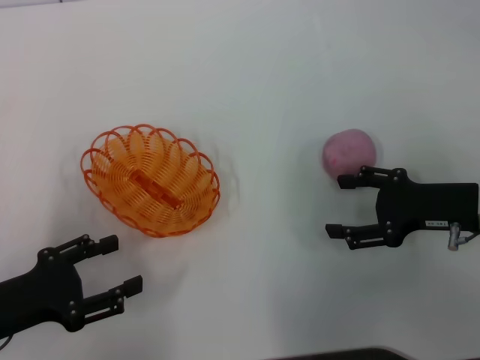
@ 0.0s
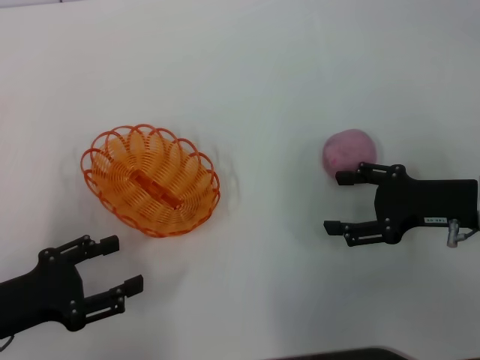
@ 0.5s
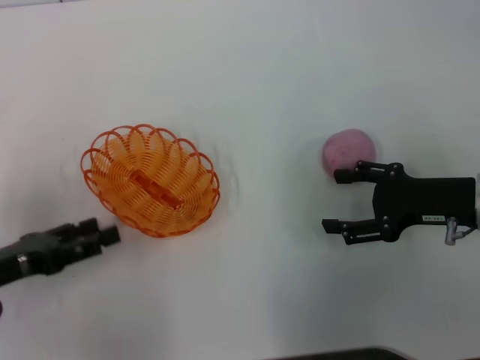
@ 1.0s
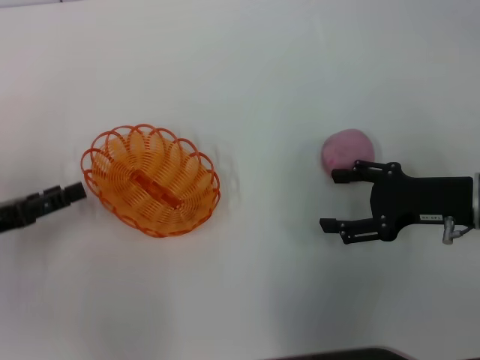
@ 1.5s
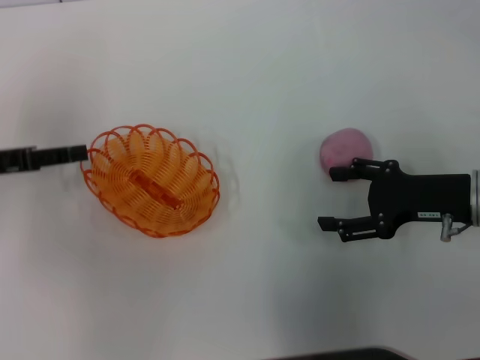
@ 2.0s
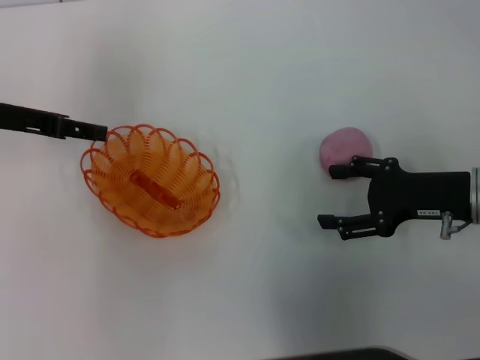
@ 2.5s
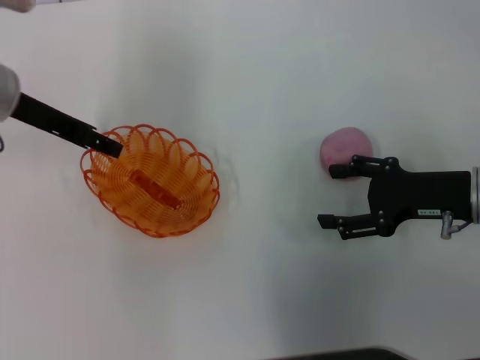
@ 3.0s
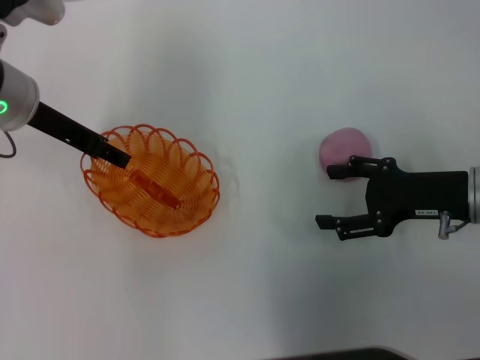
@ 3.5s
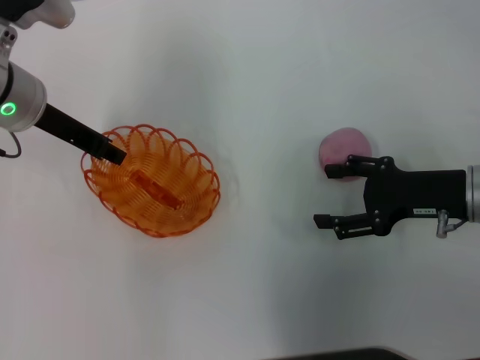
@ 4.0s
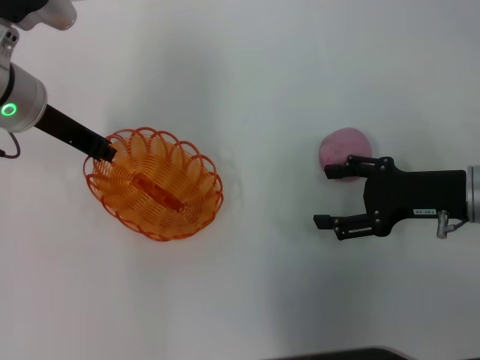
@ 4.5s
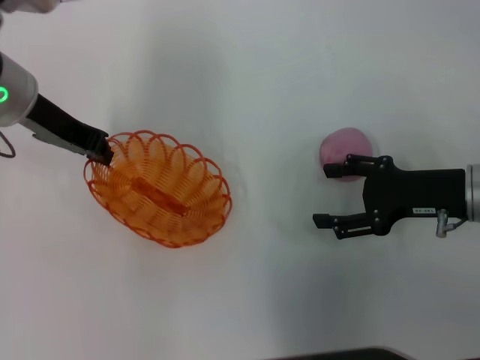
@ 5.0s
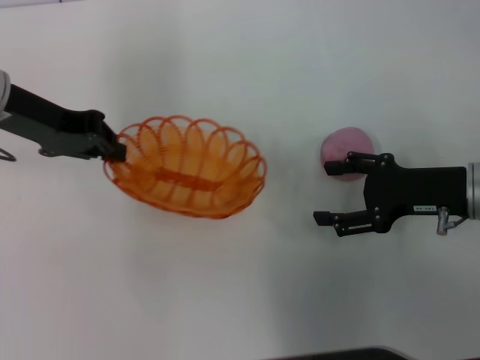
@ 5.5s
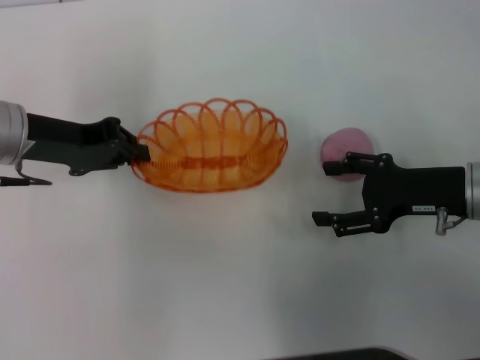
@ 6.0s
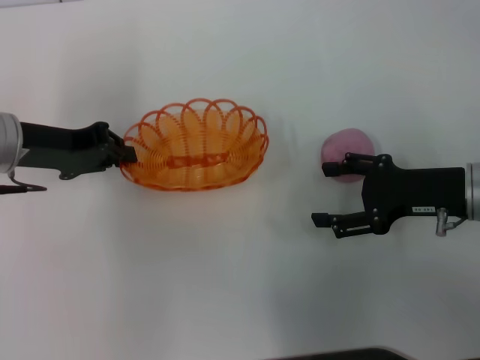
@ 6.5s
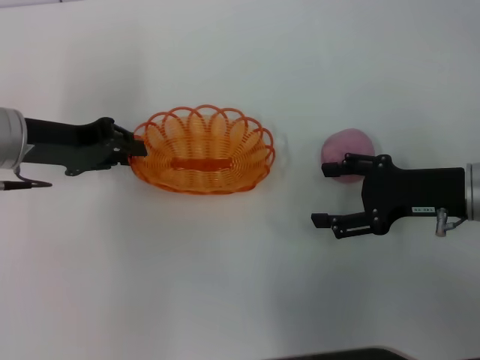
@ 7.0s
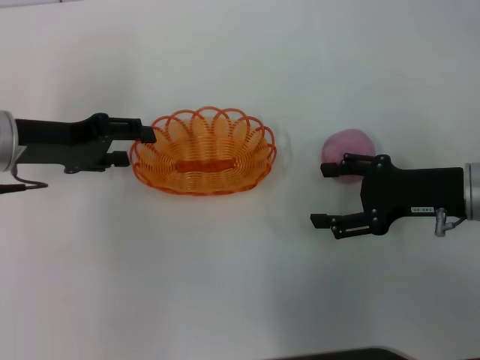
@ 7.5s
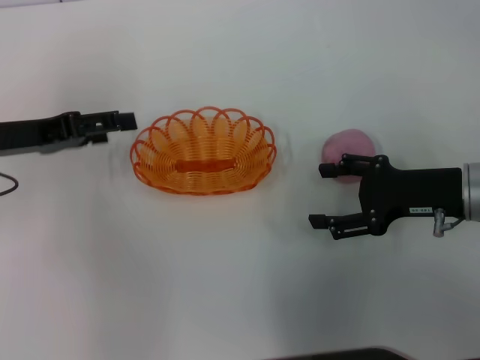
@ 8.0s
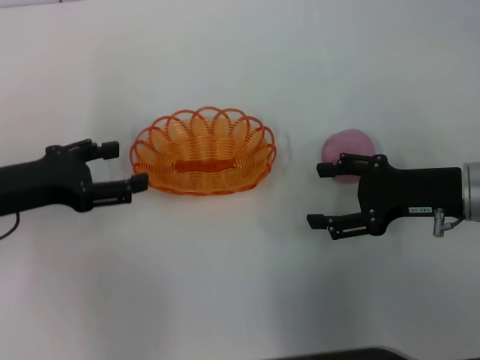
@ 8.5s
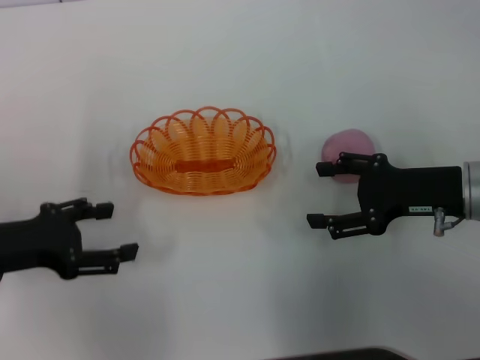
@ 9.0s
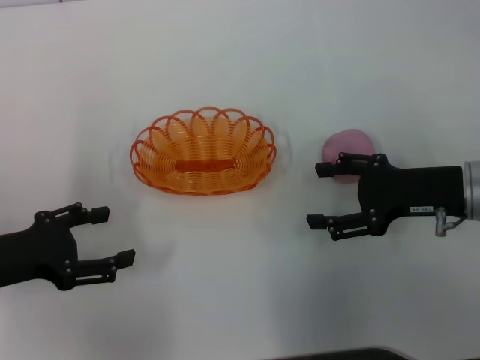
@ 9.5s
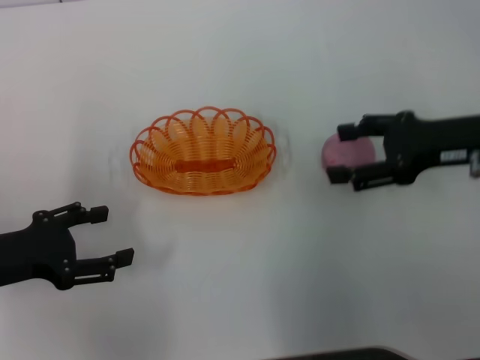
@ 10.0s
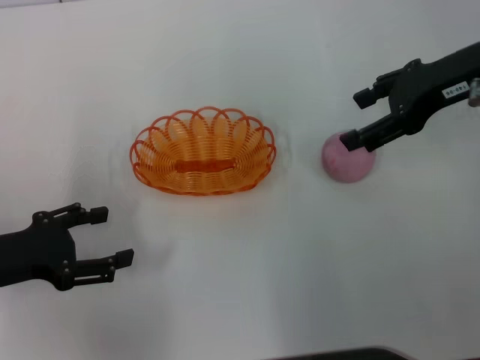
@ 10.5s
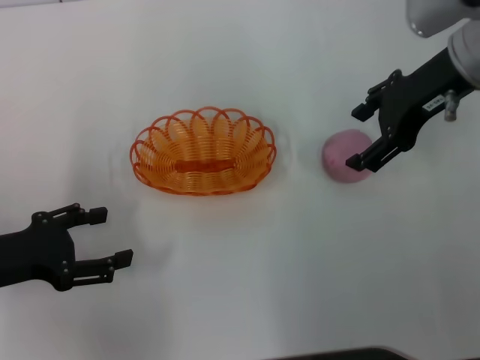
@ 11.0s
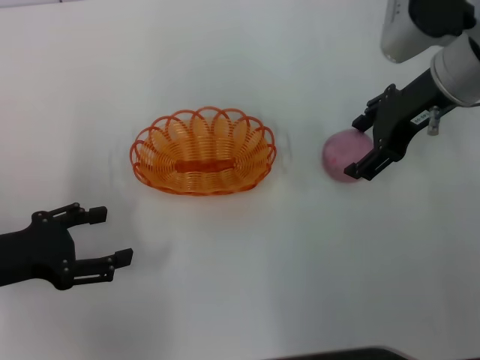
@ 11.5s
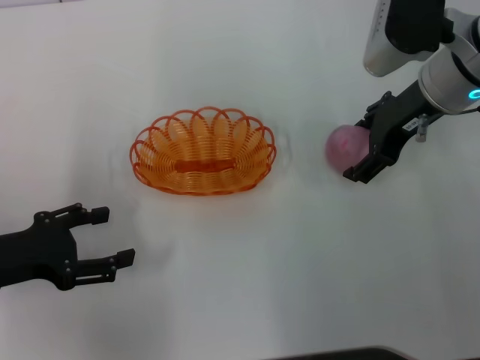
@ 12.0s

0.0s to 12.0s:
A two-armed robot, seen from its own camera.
Step, 0.0s to 5.0s: Pick up the basket with the left gripper.
Step, 6.0s to 8.0s: Place the basket in the center of view with the left gripper.
0.0s to 2.0s: The left gripper is displaced forward and upward by some 15 cm.
2.0s to 4.0s: The left gripper travels to the right and forward by roughly 15 cm.
4.0s to 6.0s: The left gripper closes its fingers.
6.0s to 8.0s: The left gripper opens its fingers.
8.0s to 10.0s: The left gripper goes some 10 cm backward. Meanwhile the right gripper travels upward by some 5 cm.
10.0s to 12.0s: The right gripper travels forward and to the left by roughly 10 cm.

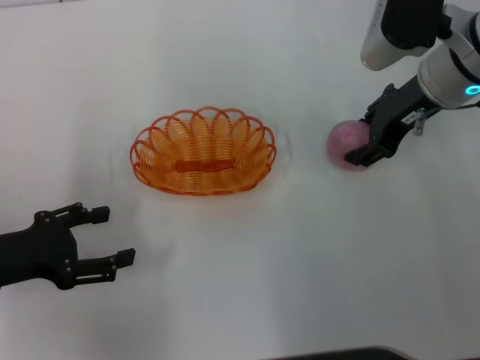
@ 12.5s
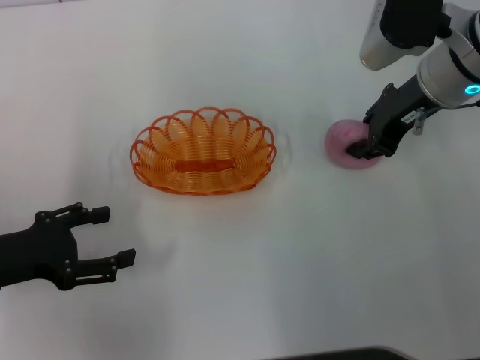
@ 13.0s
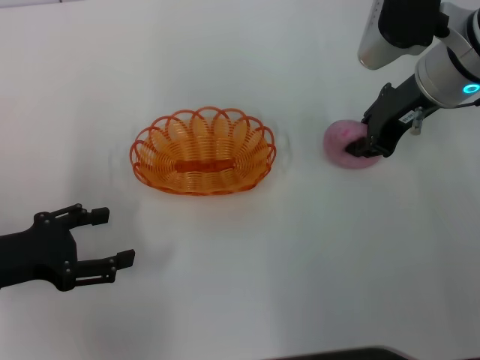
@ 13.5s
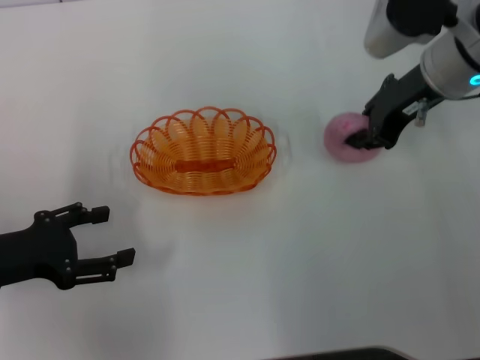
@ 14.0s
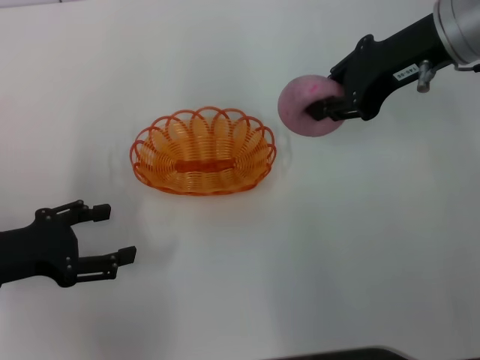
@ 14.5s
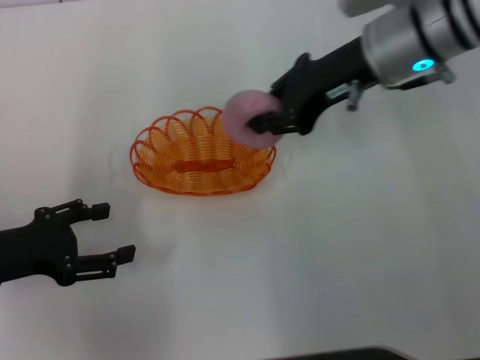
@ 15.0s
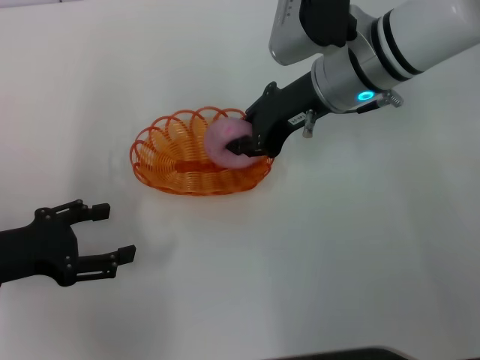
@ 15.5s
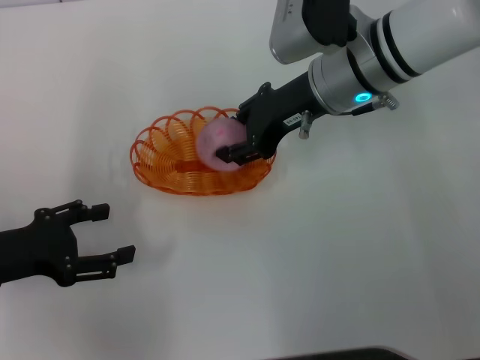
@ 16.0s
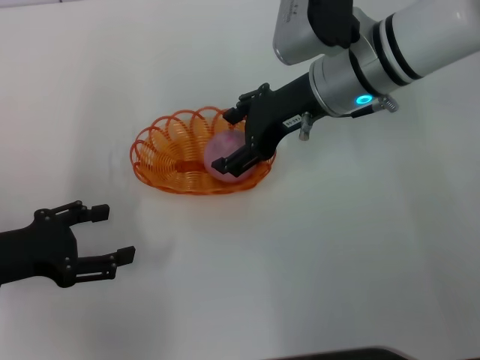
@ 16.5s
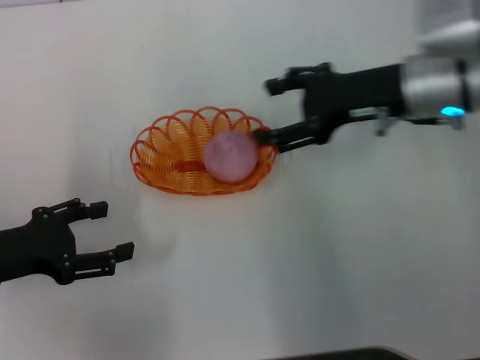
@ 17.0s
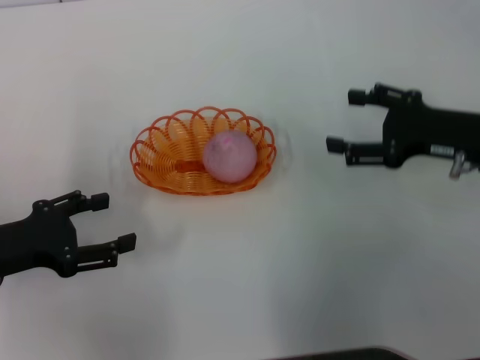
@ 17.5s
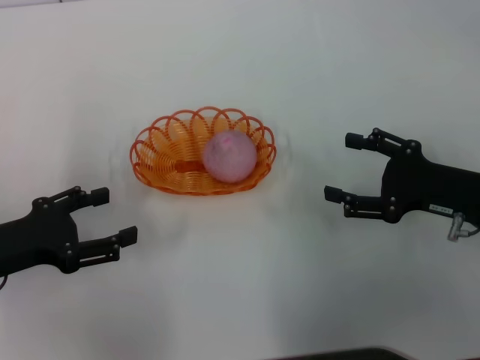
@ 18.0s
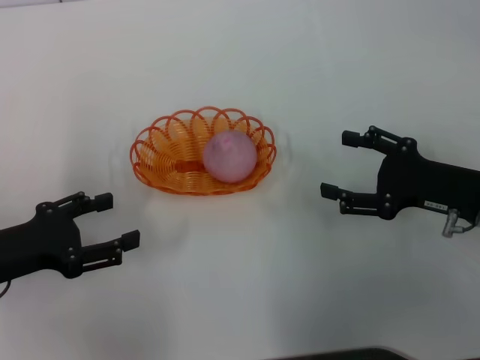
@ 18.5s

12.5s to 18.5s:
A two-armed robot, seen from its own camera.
Step, 14.5s to 17.0s: Place the peach into the basket with the right gripper.
12.5s to 14.5s: The right gripper shifts approximately 5 cm upward, and closes its fingers.
14.5s to 16.5s: The right gripper moves to the left and downward, approximately 10 cm, and opens up.
16.5s to 18.5s: The right gripper heads to the right, backward and downward, covering roughly 20 cm.

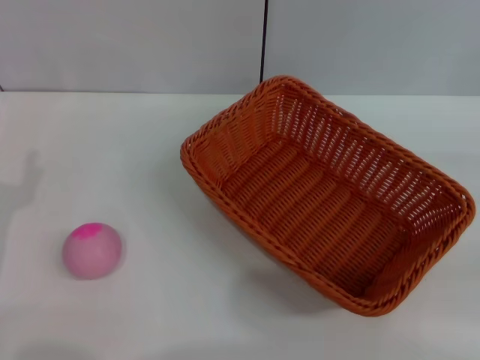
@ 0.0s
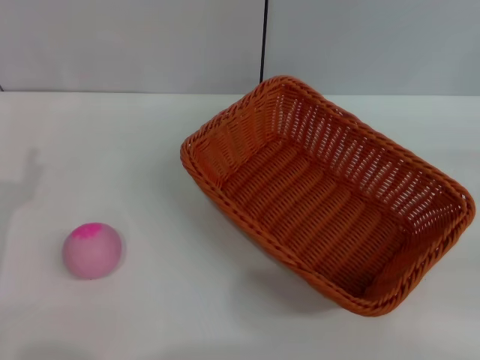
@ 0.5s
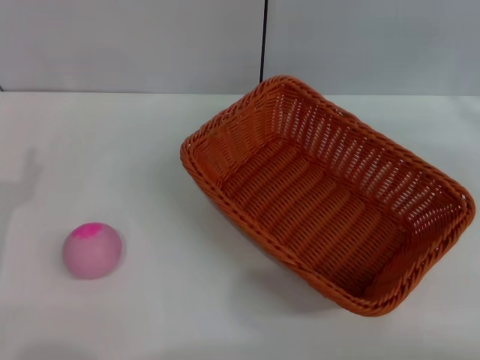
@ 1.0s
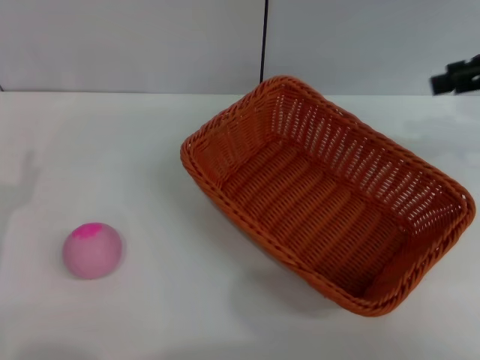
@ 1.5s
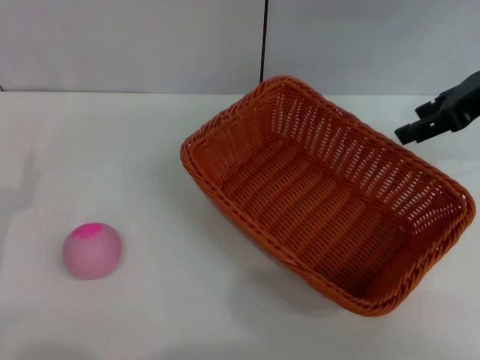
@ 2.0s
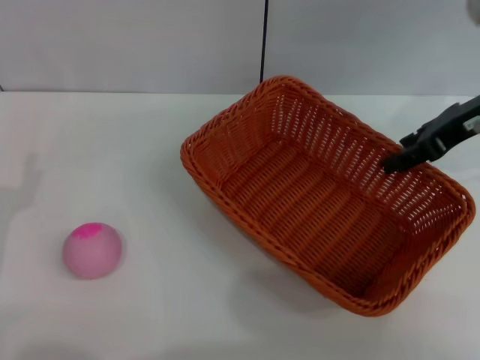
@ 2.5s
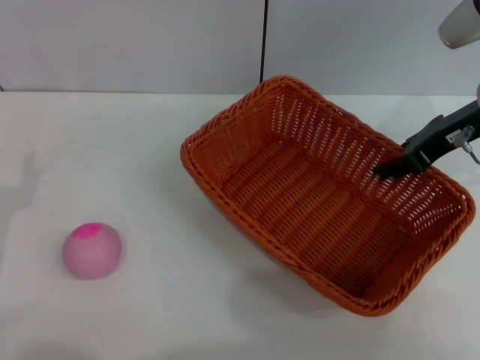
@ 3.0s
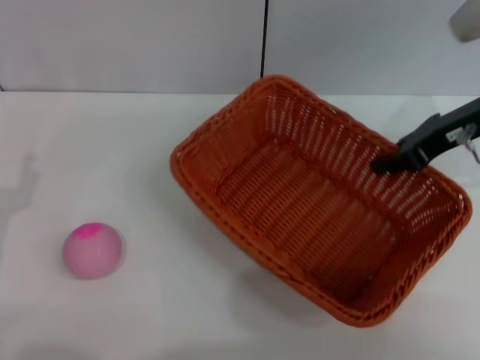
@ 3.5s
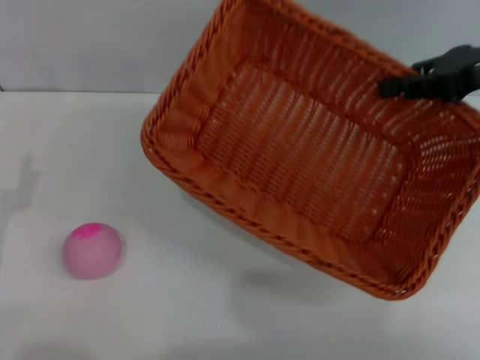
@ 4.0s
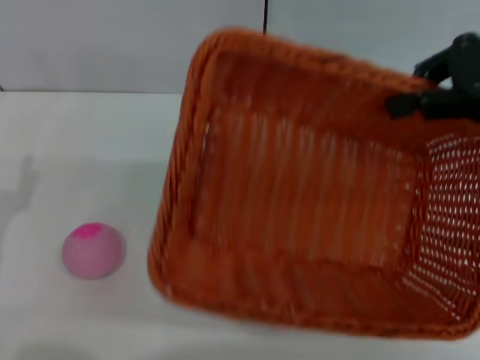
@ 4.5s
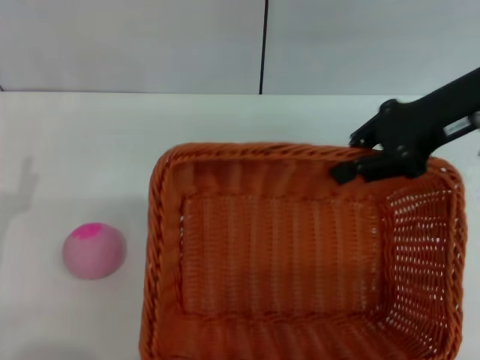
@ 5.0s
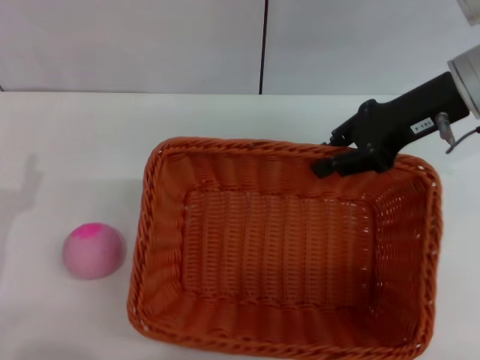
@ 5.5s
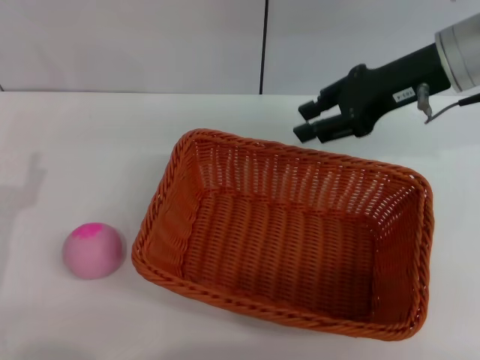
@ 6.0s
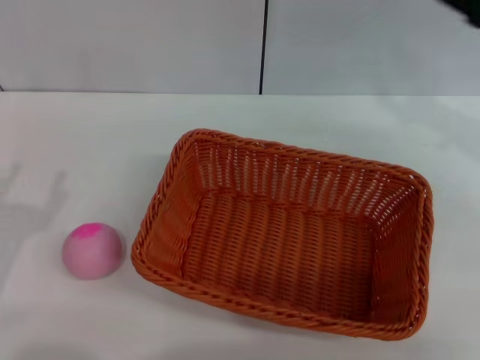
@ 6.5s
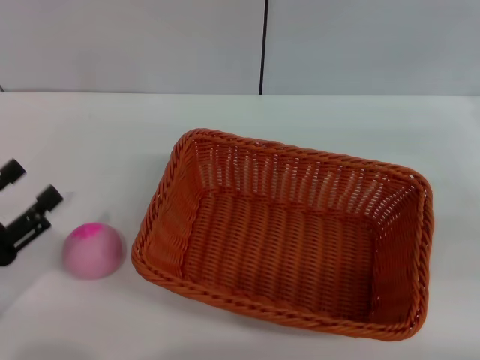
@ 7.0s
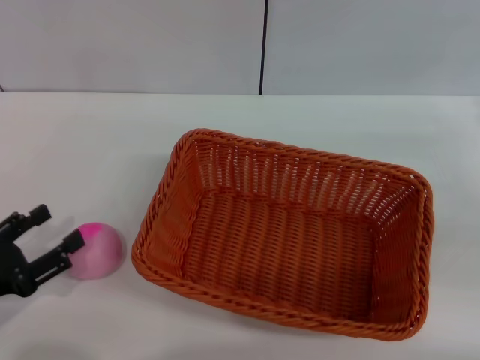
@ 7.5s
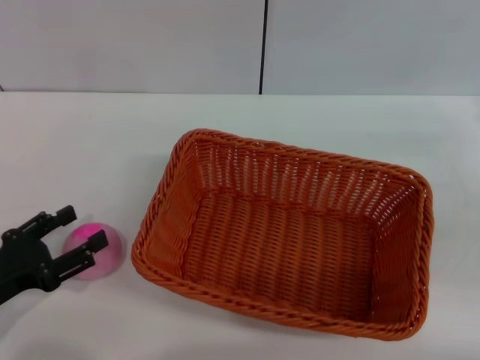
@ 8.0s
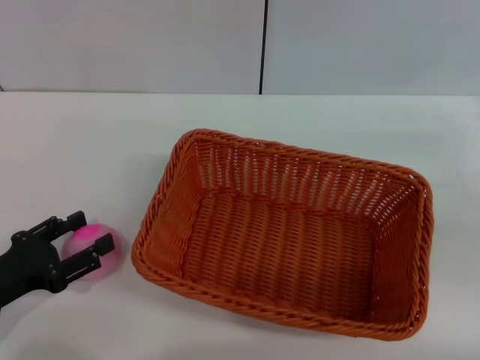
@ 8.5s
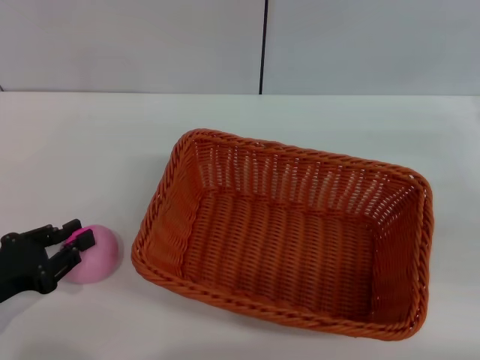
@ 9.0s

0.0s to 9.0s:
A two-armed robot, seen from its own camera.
Step, 0.0s to 4.0s: Pick up the light basket with the right gripper.
Step, 4.5s to 6.0s: Place the light basket in the center of view with the right gripper.
0.0s to 2.0s: The right gripper moves to the left, upward and forward, approximately 25 cm.
2.0s to 4.5s: The right gripper closes its fingers.
4.5s to 7.0s: The right gripper is displaced downward, to the right and backward by some 20 cm, and opens its fingers.
7.0s to 9.0s: The left gripper closes.
